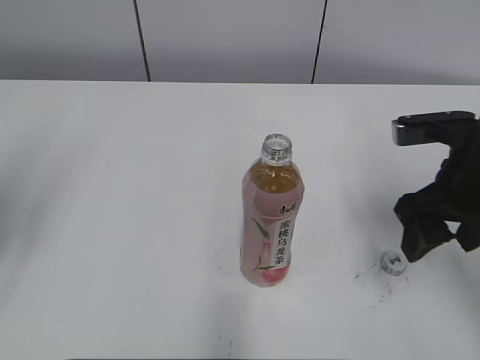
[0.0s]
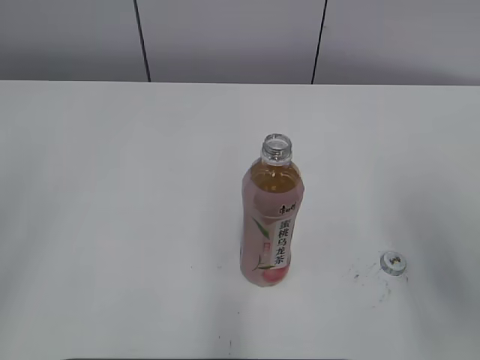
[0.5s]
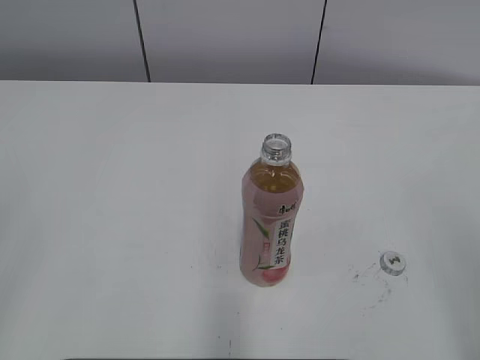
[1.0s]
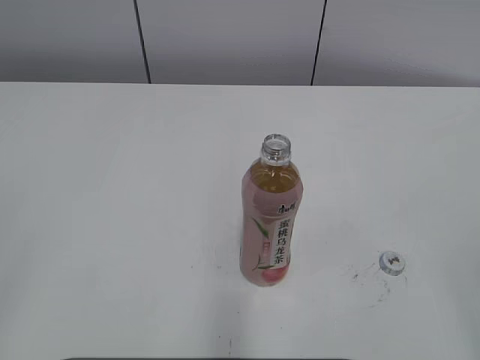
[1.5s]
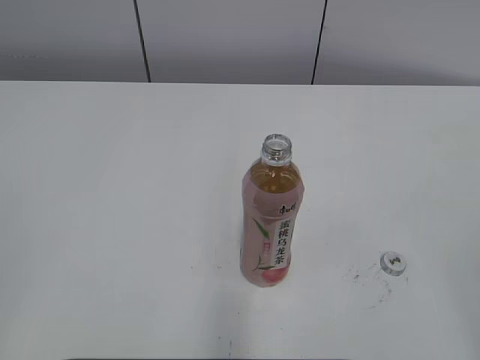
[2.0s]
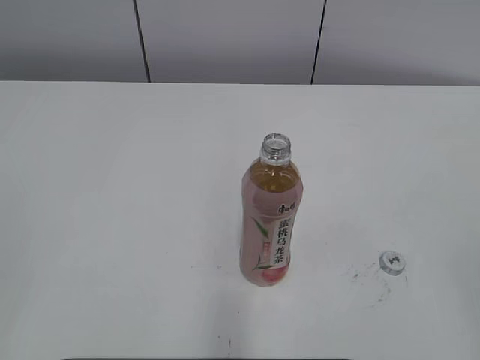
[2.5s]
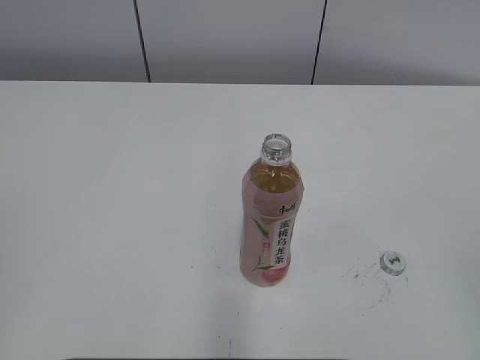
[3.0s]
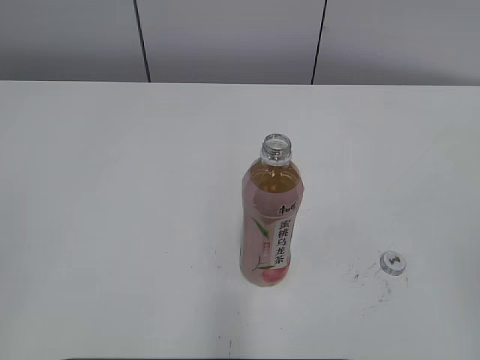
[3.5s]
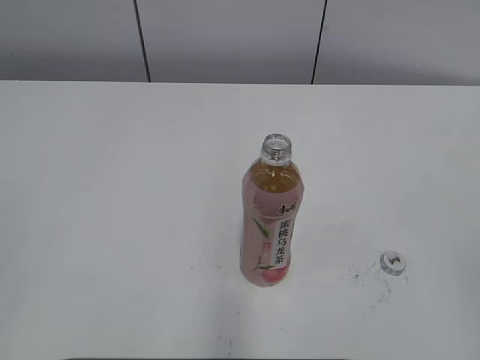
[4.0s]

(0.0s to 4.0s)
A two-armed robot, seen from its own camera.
0.0s - 2.0s: The grippers both shift backward by approximately 25 cm. The left gripper closes up.
